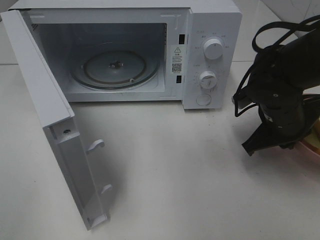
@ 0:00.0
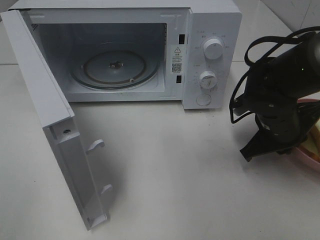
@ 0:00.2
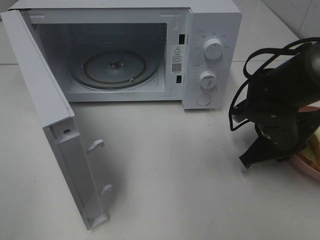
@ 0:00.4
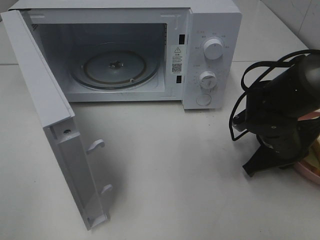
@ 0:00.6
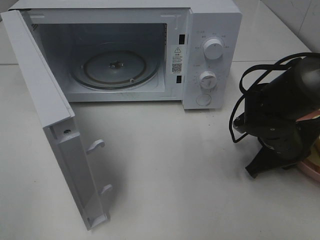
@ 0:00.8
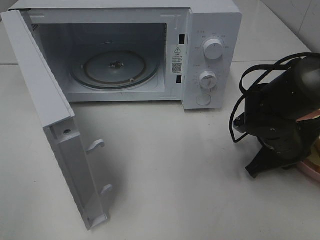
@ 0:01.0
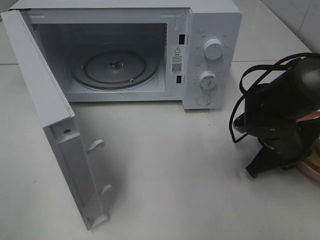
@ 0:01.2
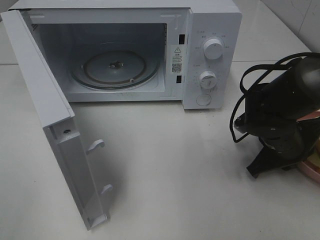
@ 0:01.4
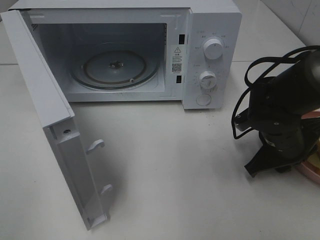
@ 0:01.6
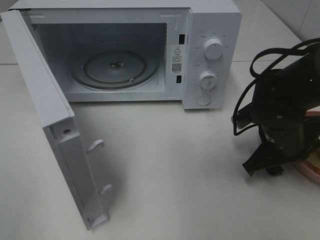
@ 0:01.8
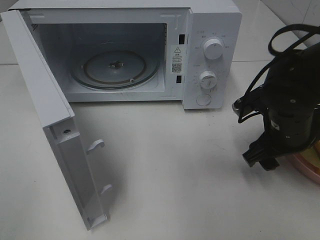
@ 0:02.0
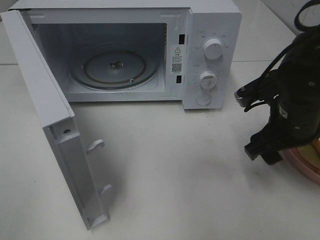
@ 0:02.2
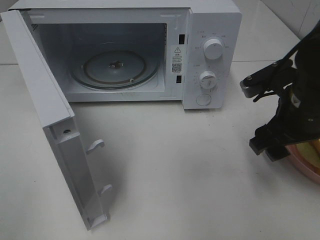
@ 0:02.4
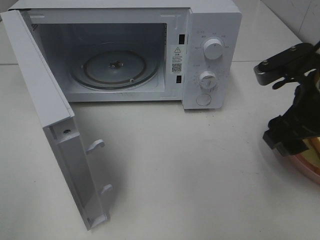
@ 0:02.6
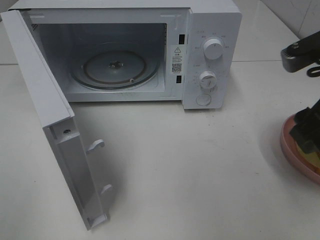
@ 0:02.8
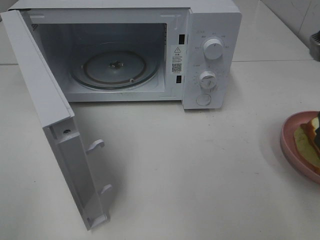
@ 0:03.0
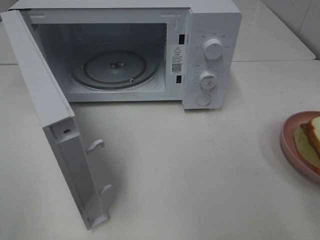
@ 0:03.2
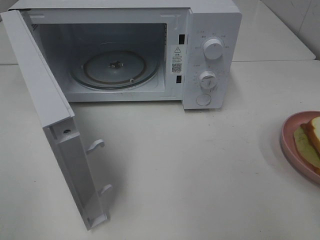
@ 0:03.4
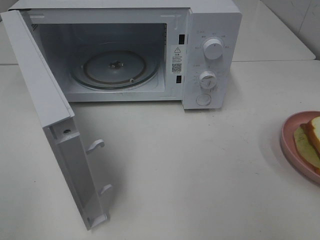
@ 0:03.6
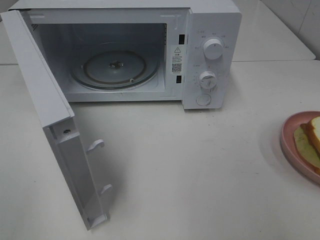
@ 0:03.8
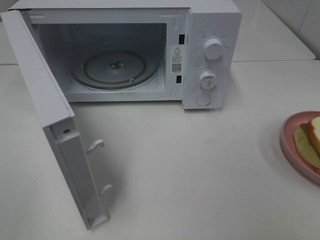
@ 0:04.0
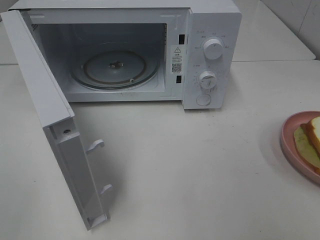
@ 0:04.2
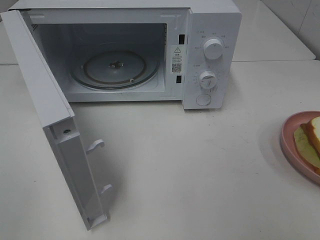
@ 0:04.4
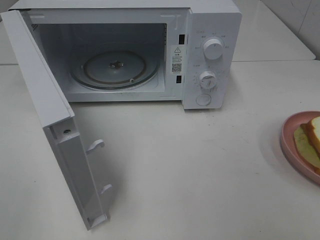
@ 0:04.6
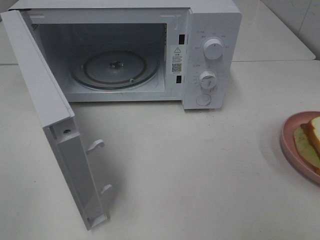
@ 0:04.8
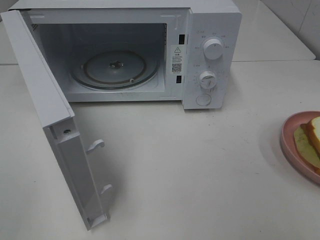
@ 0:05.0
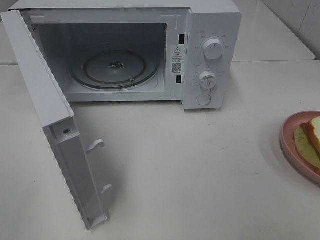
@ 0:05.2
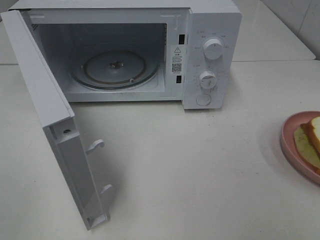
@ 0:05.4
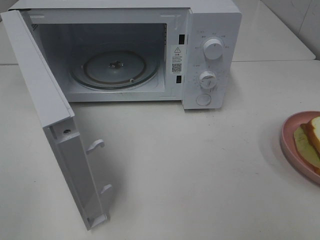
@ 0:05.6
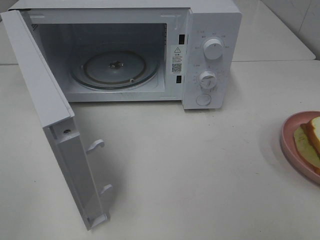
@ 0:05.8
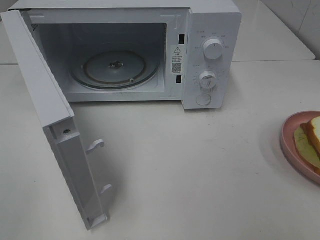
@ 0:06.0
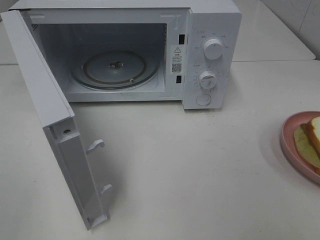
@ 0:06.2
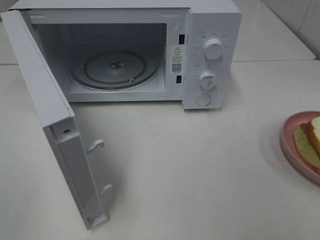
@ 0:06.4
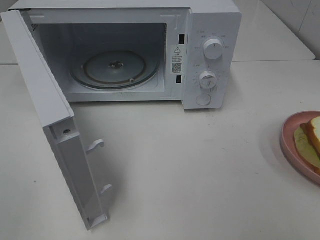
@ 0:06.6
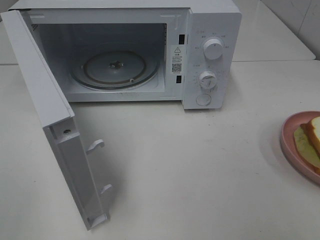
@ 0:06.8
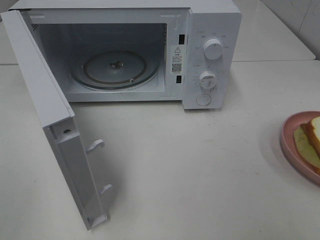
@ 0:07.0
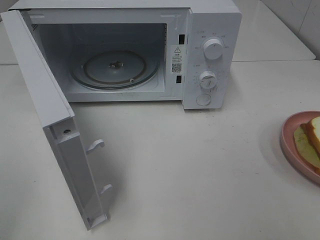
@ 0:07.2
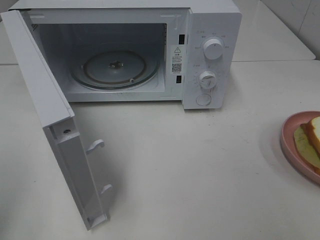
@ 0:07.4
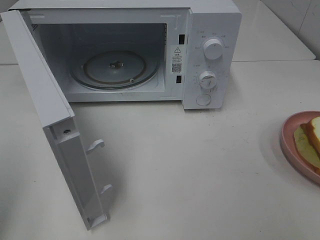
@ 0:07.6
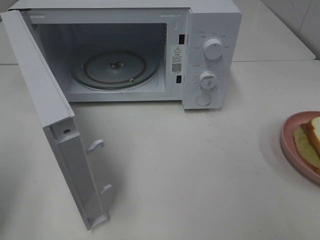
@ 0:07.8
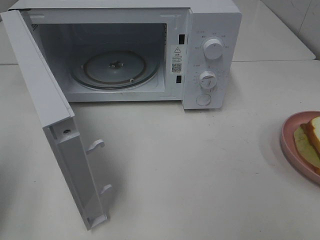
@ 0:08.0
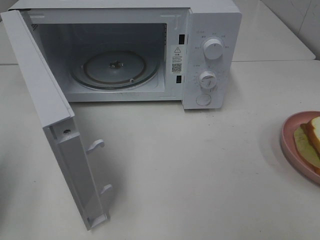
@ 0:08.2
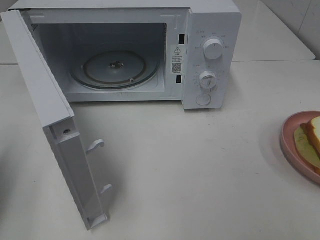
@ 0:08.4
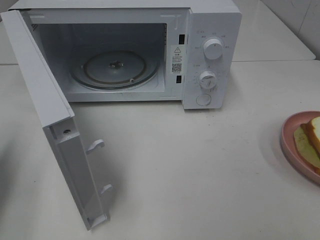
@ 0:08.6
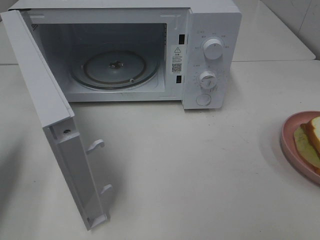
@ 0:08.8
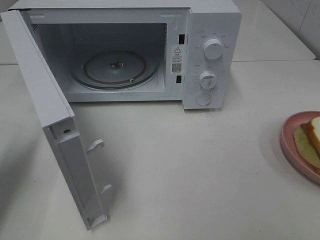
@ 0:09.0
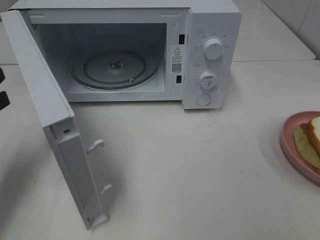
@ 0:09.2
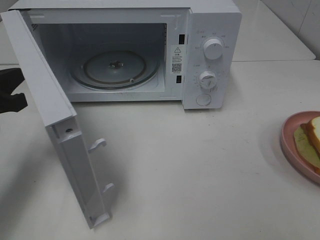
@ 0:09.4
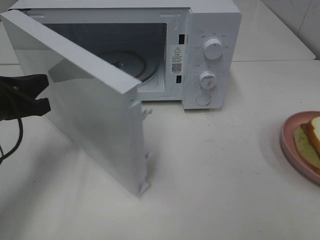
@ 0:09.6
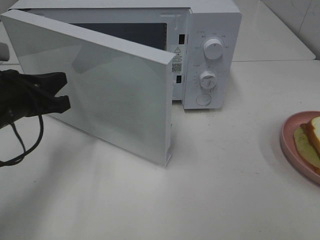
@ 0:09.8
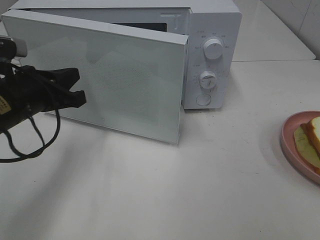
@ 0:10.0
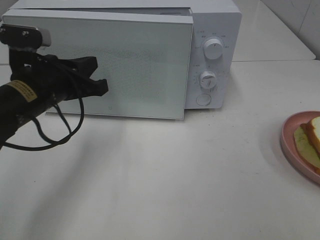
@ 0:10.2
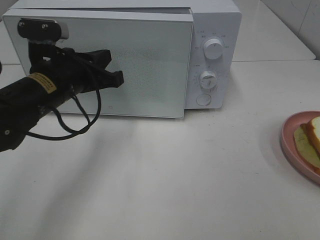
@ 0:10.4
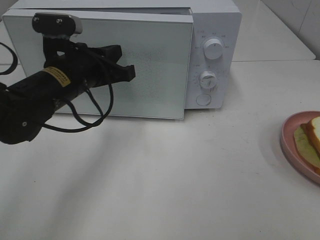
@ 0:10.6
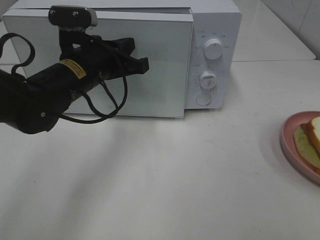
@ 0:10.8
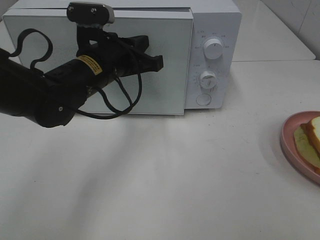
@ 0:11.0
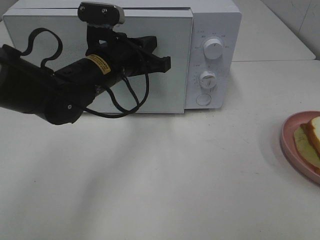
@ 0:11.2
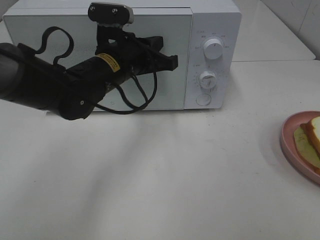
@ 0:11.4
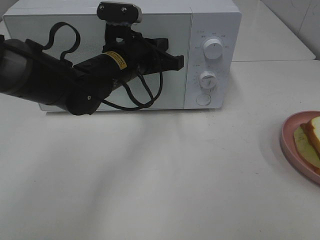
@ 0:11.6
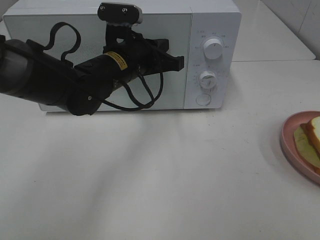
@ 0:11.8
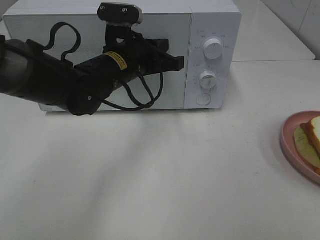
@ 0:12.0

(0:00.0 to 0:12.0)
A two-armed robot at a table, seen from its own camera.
Task of the whole recording: Heat Sandwich.
Step, 0:00.0 - 0:02.4: Right hand: place the plate on the table.
0:00.0 - 0:01.6: The right gripper opens its fingers.
0:01.6 - 0:03.0: The right gripper is displaced upward and backward by about 20 cm, and opens up.
0:03.0 - 0:04.4: The right gripper moves backward, about 15 cm.
0:07.6 - 0:09.0: The left gripper travels forward and downward by roughly 15 cm.
0:09.0 - 0:10.4: The left gripper travels to the right and forward by approximately 20 cm.
0:10.4 - 0:12.0: The left gripper heads to the right and forward, covering approximately 10 cm.

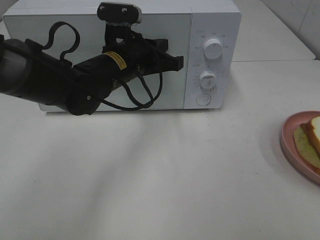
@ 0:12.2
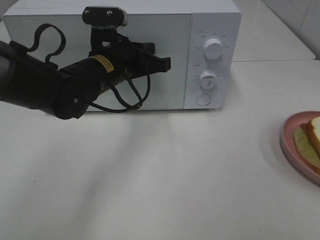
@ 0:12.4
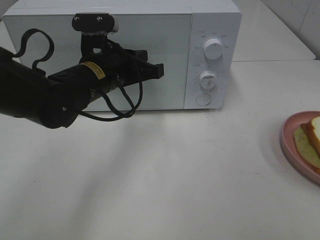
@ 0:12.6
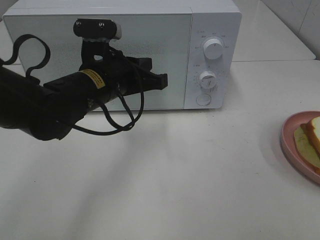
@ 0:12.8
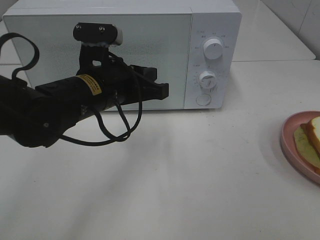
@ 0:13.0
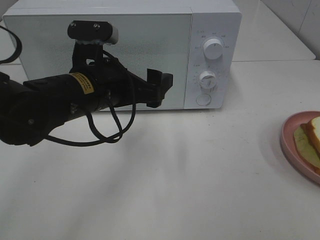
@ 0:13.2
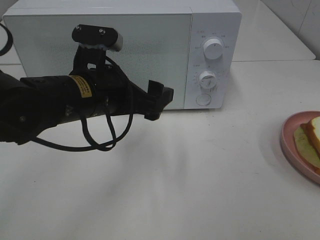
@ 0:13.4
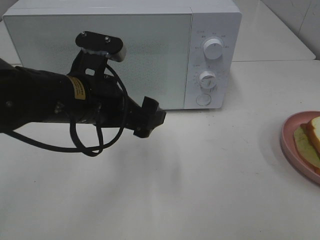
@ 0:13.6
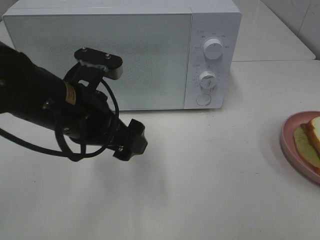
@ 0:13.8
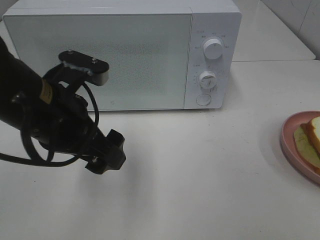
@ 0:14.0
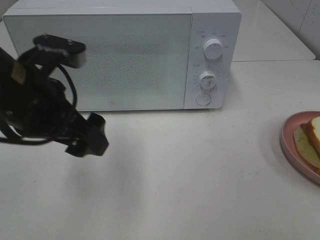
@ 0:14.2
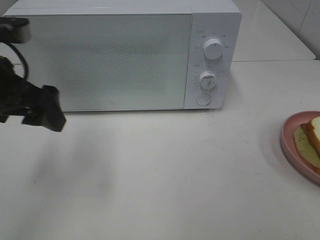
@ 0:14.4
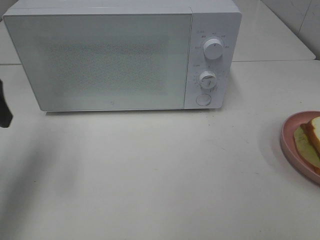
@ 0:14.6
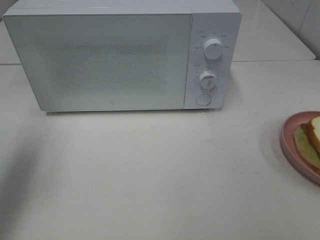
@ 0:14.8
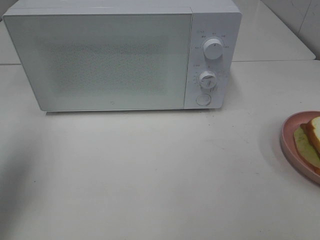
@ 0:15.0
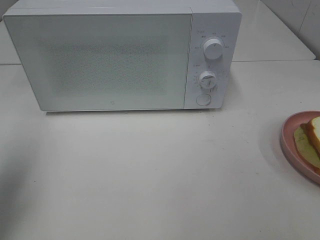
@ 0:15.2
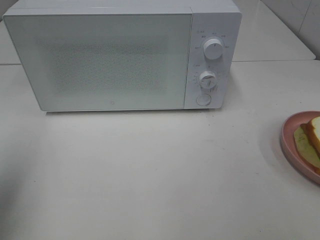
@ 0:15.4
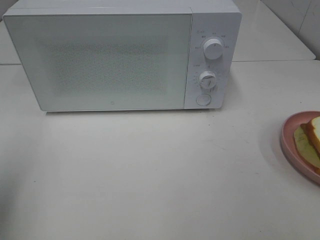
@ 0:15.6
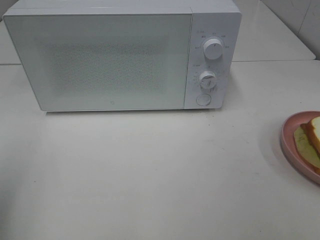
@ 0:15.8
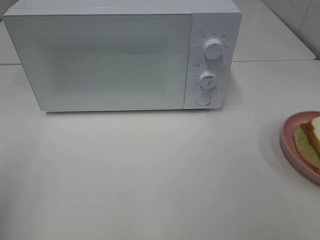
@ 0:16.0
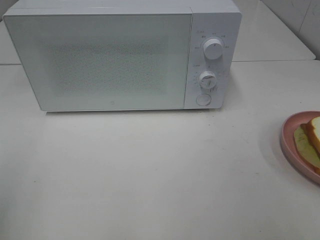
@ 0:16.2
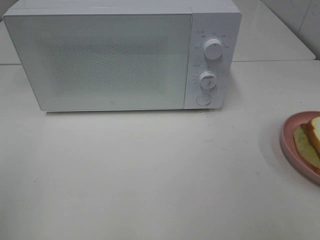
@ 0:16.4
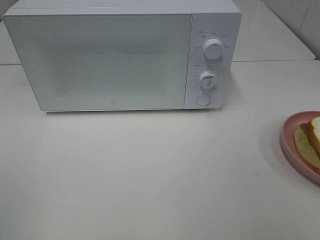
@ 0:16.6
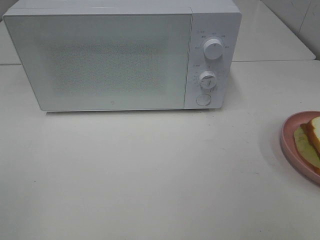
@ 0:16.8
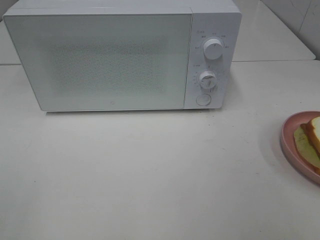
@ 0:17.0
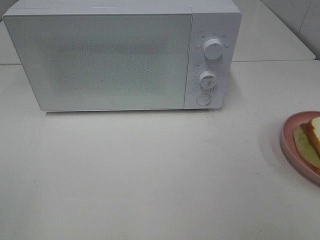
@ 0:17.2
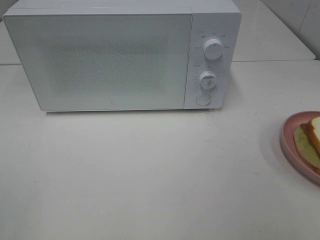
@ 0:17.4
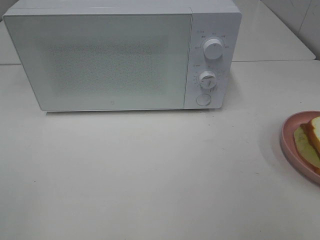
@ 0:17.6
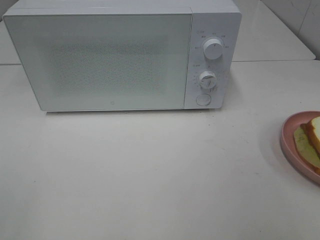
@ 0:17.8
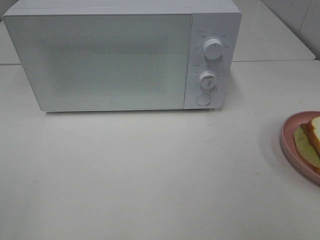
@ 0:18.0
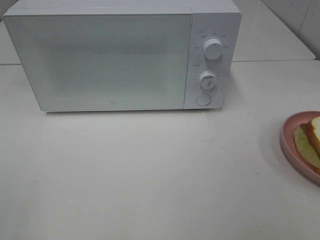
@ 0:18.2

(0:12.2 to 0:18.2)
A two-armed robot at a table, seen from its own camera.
Task of the whole recording: Heat Sandwich.
0:12.2 - 0:13.8: The left gripper shifts approximately 15 cm backward and to the left, and opens.
0:13.8 - 0:15.2: The left gripper moves to the left and upward, about 25 cm.
0:15.2 - 0:16.6: The left gripper is displaced backward by approximately 15 cm.
